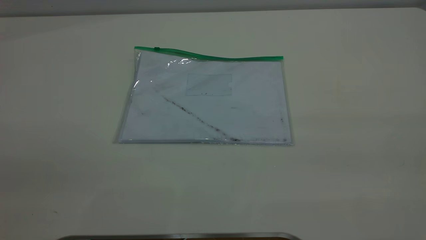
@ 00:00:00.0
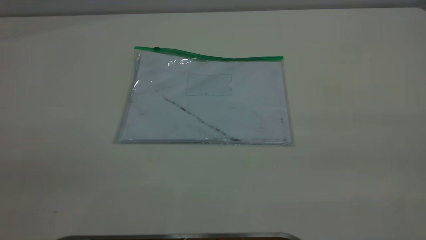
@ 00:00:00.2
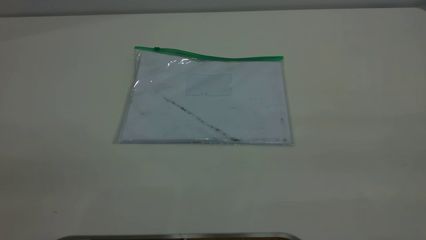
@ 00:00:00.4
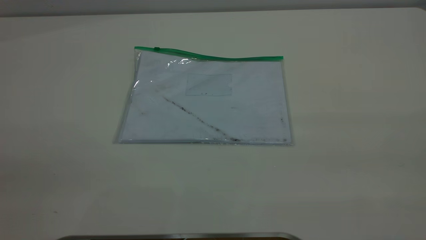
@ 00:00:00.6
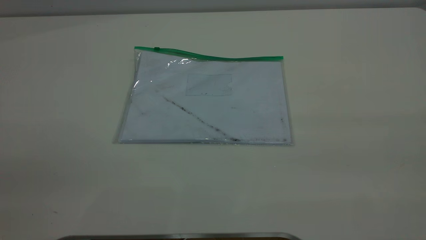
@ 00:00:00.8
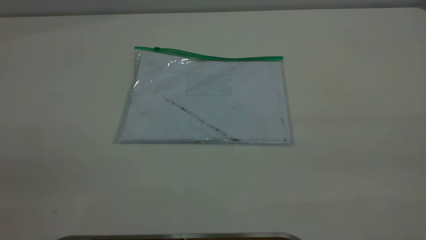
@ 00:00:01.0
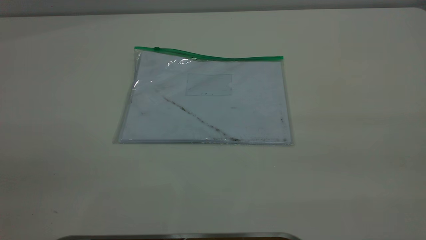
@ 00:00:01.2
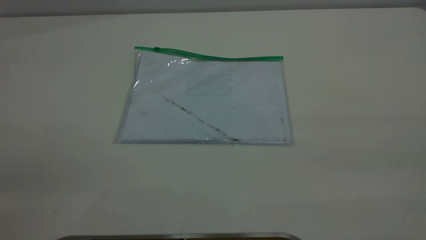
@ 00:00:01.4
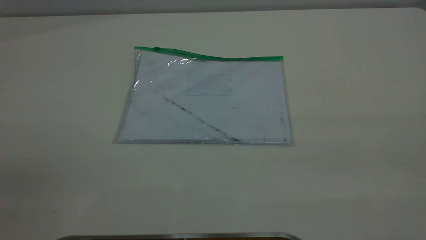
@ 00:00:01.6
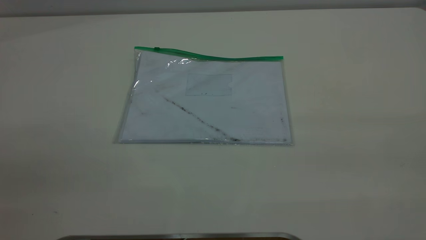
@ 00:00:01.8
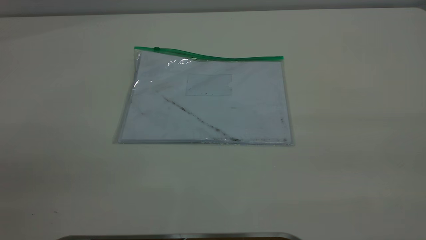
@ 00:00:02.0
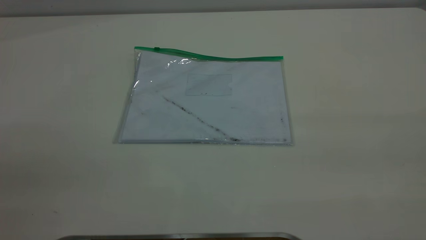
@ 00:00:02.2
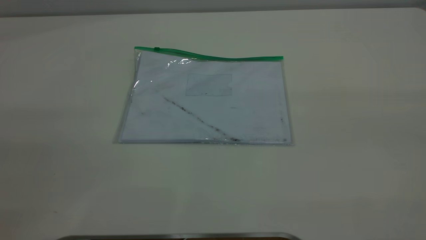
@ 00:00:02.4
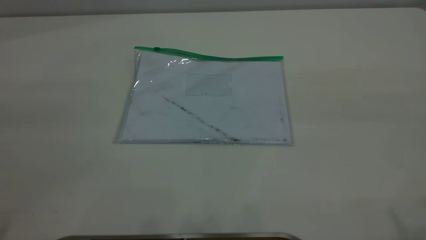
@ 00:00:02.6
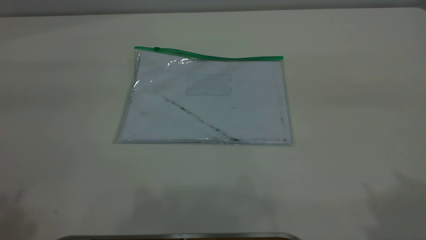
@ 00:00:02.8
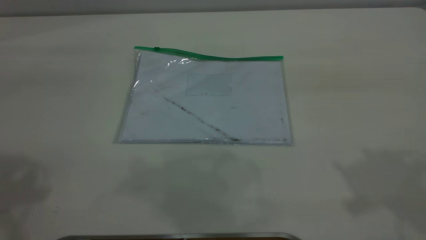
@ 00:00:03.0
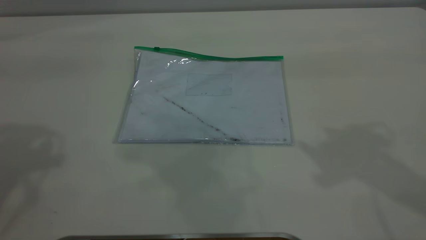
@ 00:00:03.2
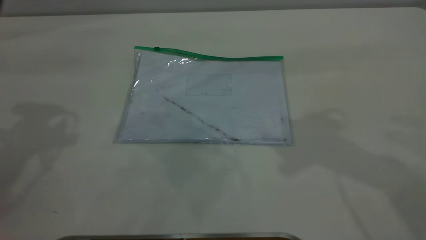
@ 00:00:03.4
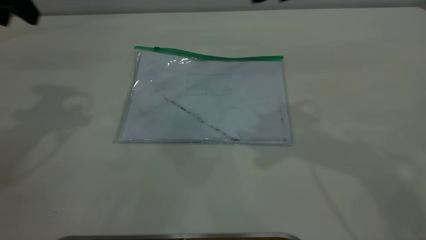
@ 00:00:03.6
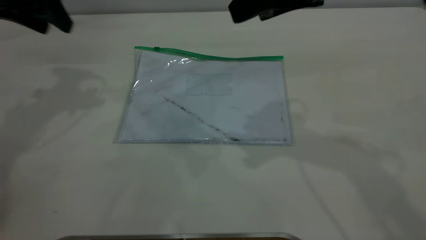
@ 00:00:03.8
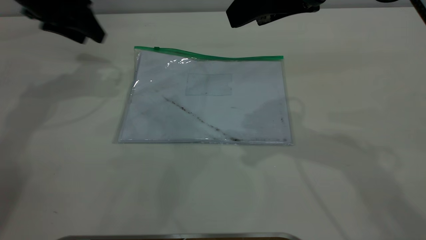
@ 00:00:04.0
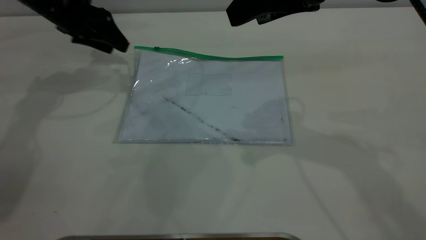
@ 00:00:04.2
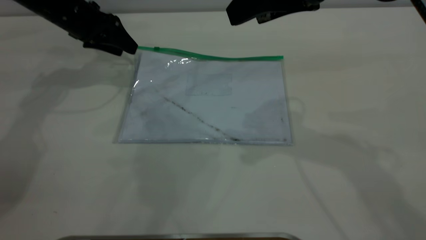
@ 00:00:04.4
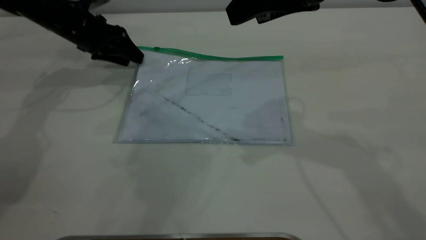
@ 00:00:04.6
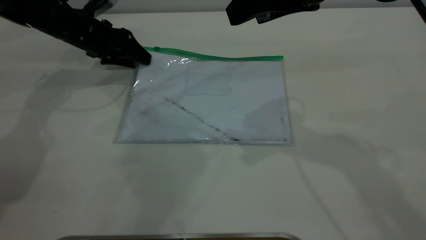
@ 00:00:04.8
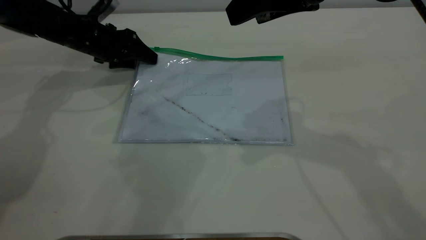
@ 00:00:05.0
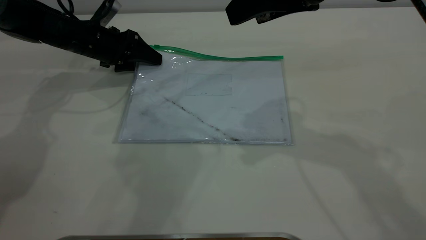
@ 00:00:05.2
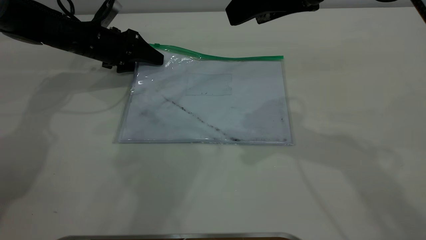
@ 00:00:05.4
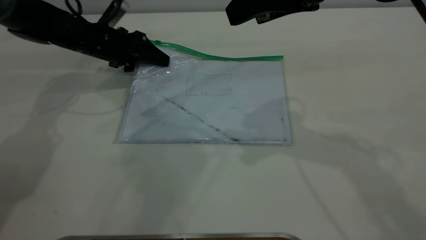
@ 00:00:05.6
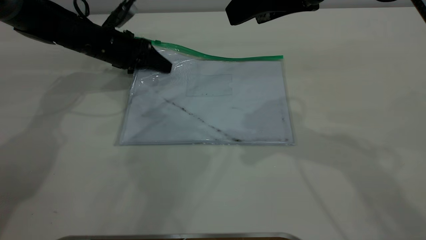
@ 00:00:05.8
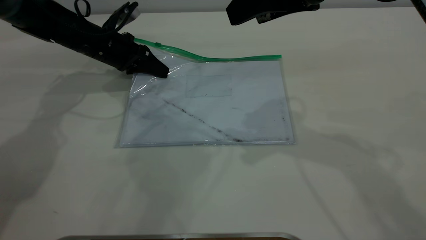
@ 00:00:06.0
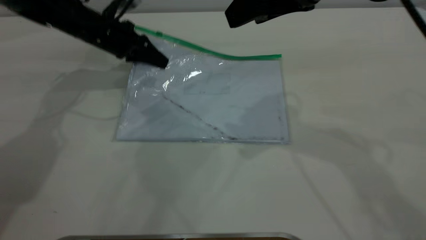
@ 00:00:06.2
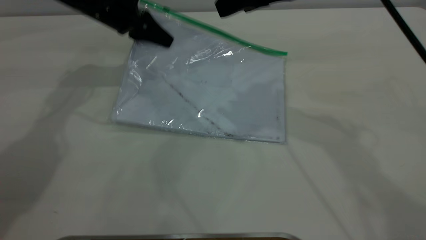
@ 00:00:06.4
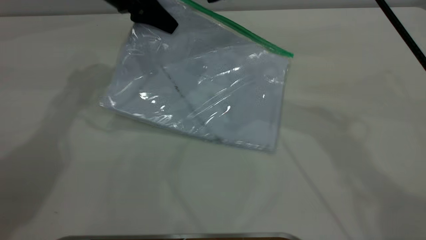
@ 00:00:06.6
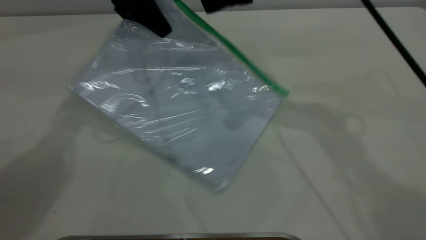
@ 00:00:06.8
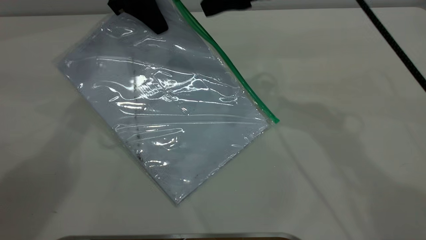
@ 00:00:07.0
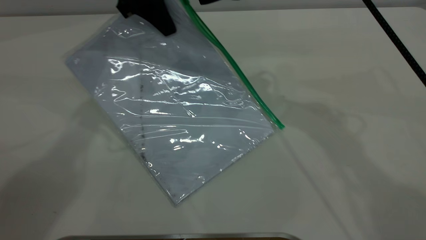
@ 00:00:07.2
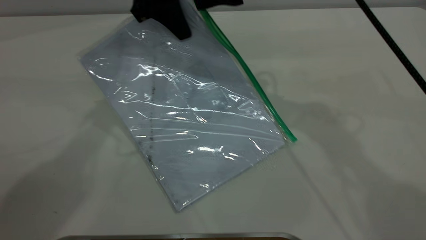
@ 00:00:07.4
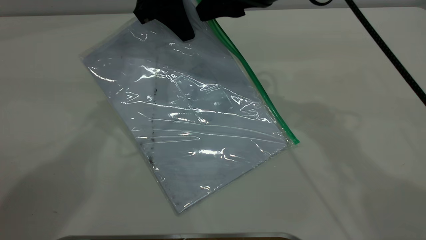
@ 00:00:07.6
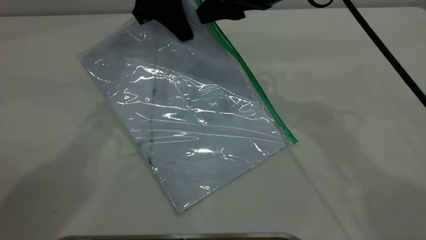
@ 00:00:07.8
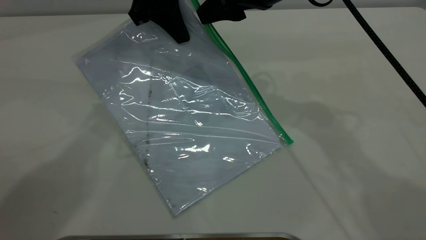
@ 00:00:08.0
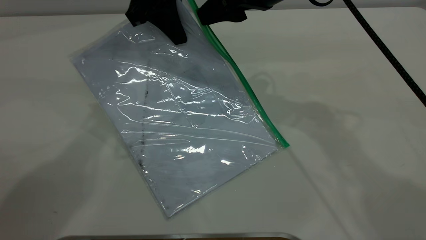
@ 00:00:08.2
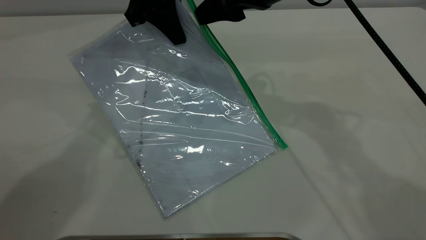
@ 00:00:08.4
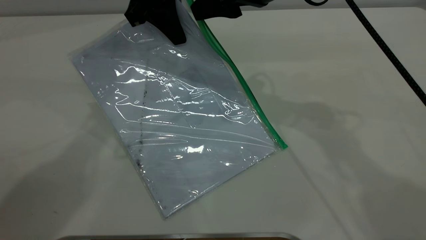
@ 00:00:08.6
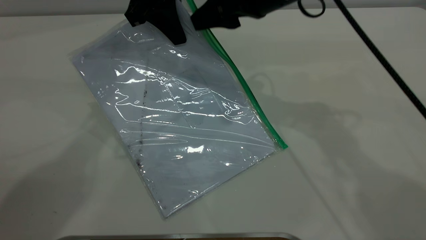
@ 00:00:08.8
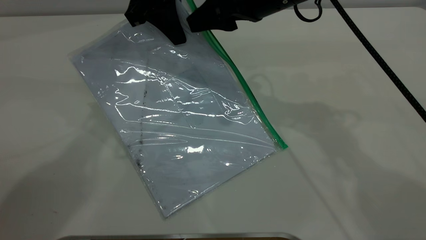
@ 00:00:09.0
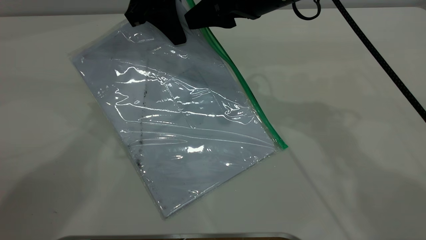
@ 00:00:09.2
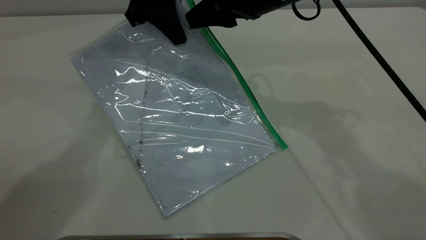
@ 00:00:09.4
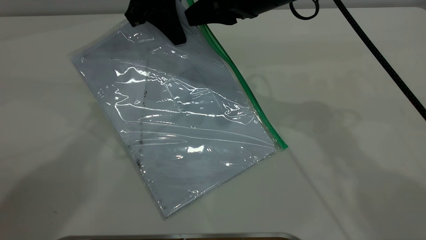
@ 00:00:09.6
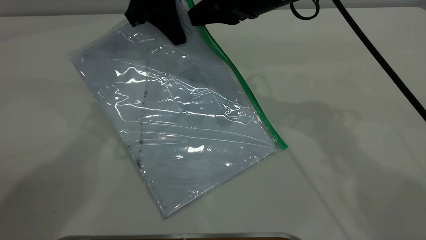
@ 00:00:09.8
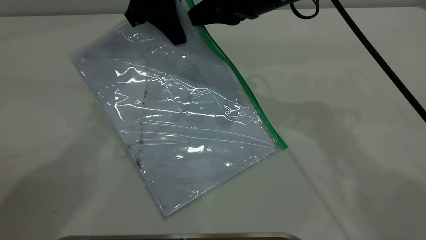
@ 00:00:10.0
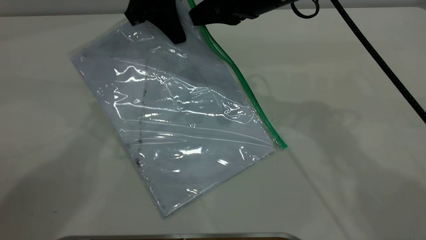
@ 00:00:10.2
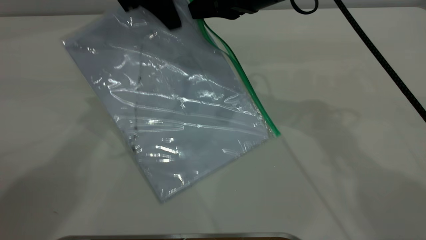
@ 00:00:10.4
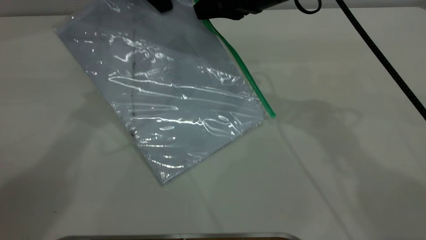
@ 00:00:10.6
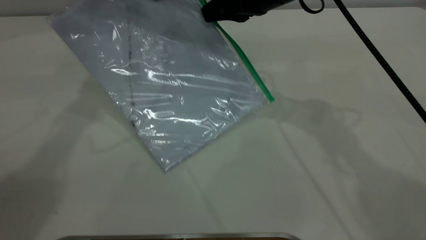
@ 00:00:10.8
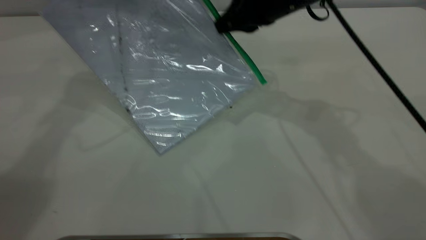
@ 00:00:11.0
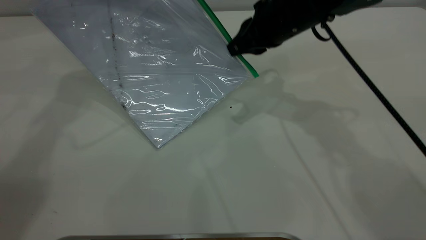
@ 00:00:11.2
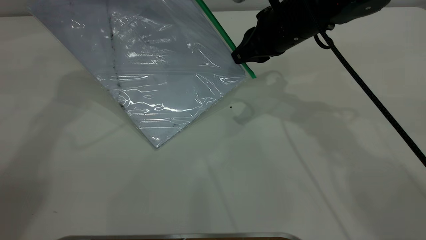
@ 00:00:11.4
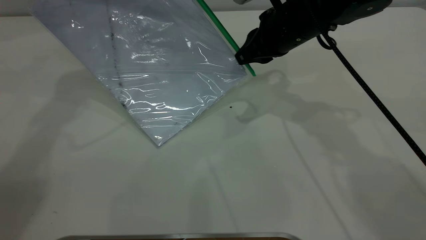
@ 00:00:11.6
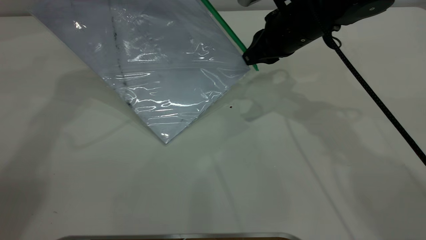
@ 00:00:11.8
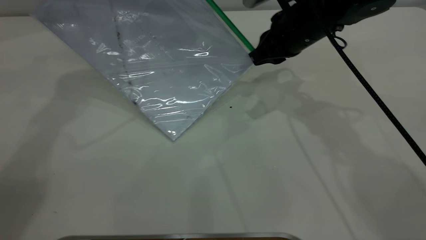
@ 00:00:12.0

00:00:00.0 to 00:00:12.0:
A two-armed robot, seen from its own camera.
Step, 00:00:00.0 to 00:00:06.0: Pick up the transparent plastic bag with the left gripper.
00:00:00.0 to 00:00:01.6: Both grippers stay about where they are.
00:00:03.0 to 00:00:04.4: The left gripper shifts some 40 cm forward and downward. The right gripper shifts approximately 20 cm to the left, forward and downward.
00:00:04.4 to 00:00:06.0: The left gripper is displaced downward by approximately 5 cm, and closes its fingers.
00:00:06.0 to 00:00:07.6: The left gripper goes approximately 20 cm upward and to the right, while the right gripper goes some 5 cm forward.
00:00:07.6 to 00:00:09.0: The grippers make only small movements.
00:00:09.0 to 00:00:10.4: The right gripper closes its fingers.
00:00:10.4 to 00:00:12.0: The left gripper moves to the left, roughly 5 cm, while the right gripper travels downward and to the right by some 10 cm.

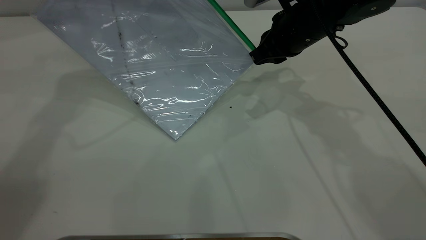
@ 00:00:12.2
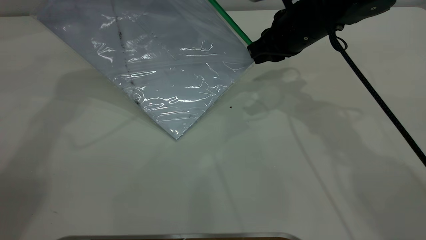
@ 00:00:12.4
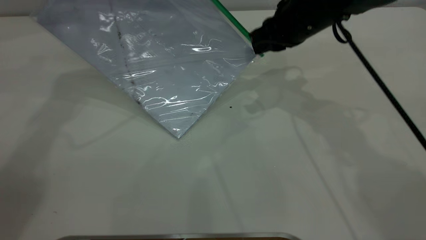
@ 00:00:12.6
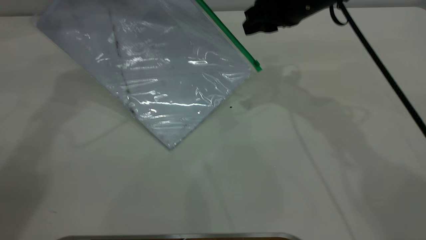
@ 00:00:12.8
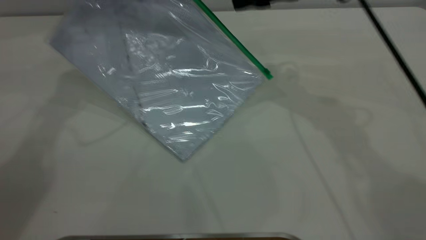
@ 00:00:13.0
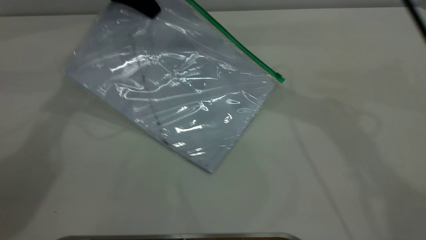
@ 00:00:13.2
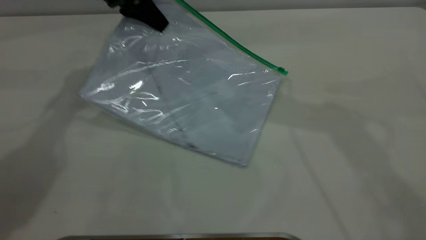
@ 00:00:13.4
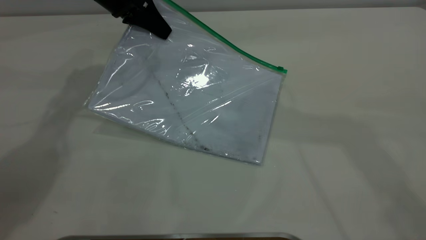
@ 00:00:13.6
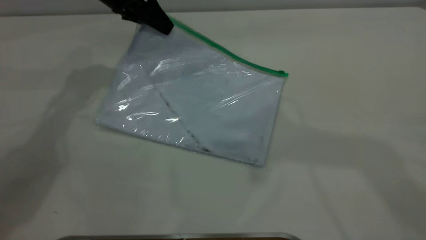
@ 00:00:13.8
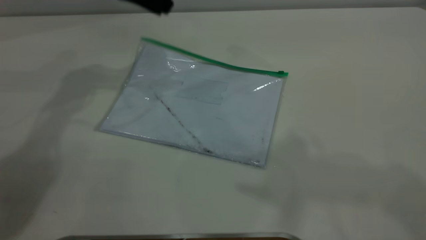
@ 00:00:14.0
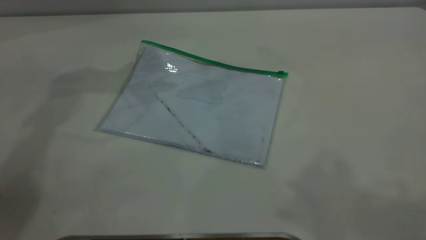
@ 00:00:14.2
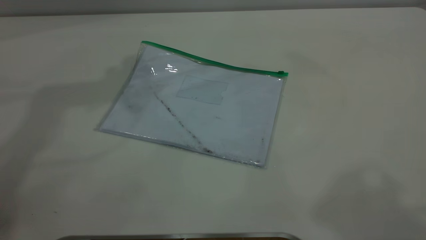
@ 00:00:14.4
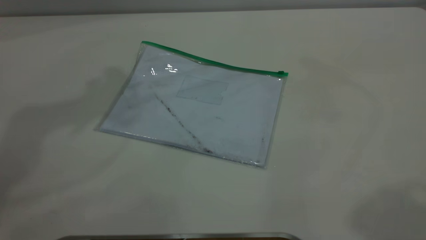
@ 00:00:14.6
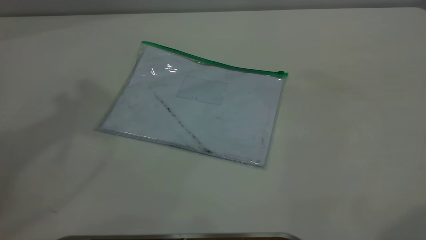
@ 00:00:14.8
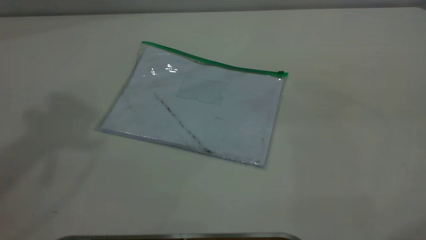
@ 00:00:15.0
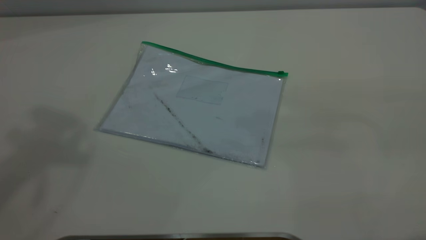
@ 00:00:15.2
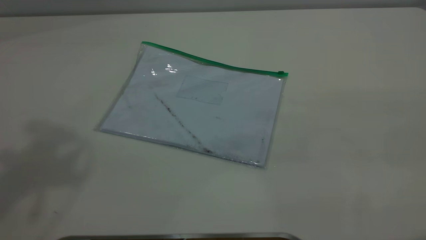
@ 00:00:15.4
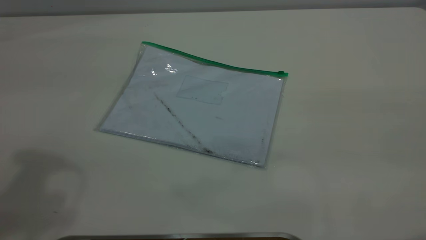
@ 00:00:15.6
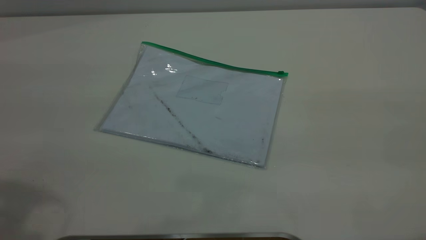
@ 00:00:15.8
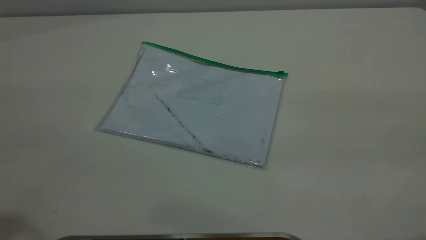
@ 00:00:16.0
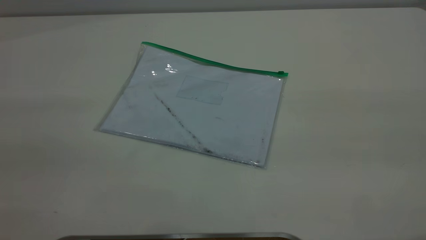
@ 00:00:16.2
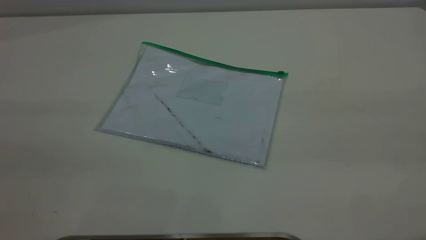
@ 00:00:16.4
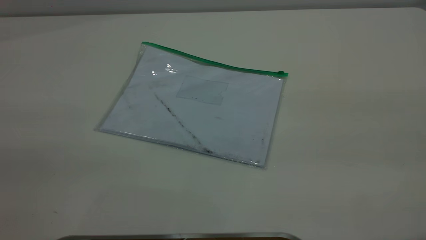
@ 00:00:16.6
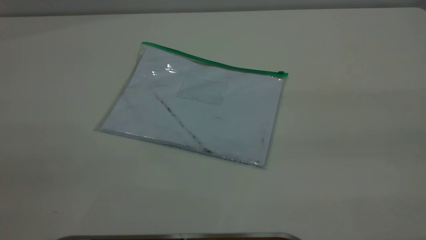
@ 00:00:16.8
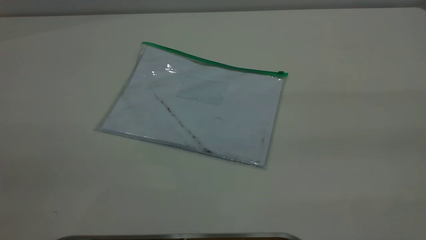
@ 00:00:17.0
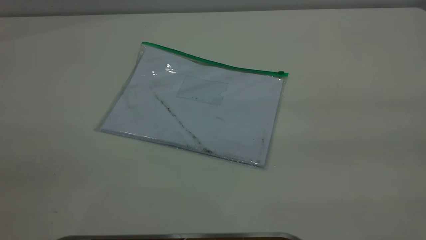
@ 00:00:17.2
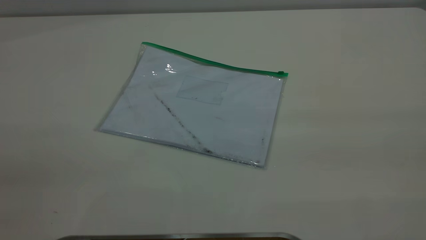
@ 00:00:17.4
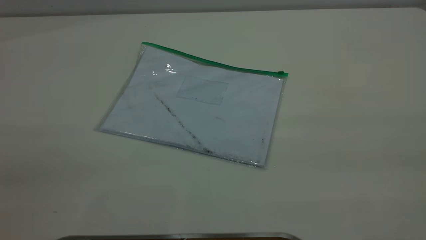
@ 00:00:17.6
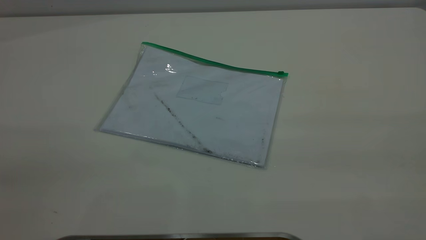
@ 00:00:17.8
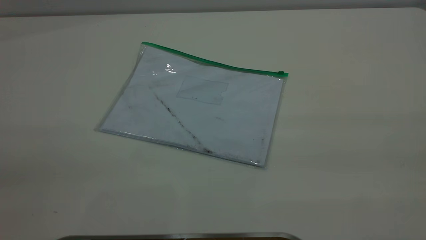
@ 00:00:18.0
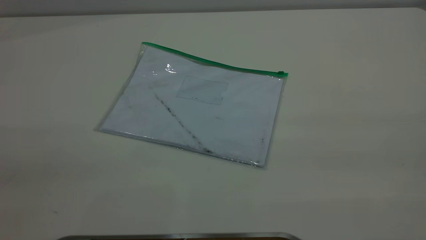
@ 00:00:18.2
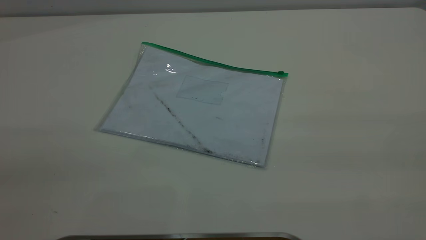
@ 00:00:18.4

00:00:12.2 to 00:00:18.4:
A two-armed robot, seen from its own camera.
Step, 00:00:12.8 to 00:00:13.8: Place the transparent plastic bag.
00:00:12.2 to 00:00:13.8: The left gripper goes some 10 cm downward, and opens up. The right gripper is displaced upward by about 35 cm, and opens up.
00:00:13.8 to 00:00:15.4: The left gripper is displaced upward and backward by roughly 35 cm. Meanwhile the right gripper is displaced backward, to the right and downward by some 25 cm.
